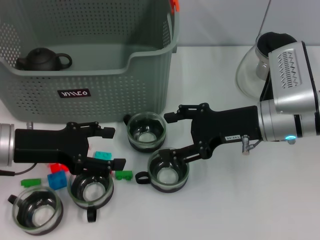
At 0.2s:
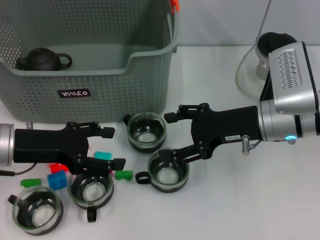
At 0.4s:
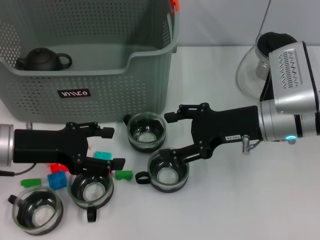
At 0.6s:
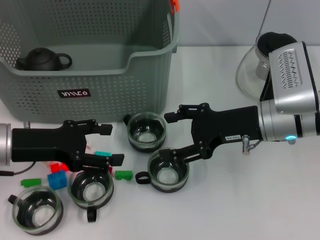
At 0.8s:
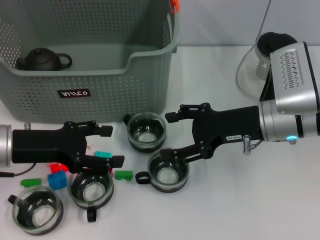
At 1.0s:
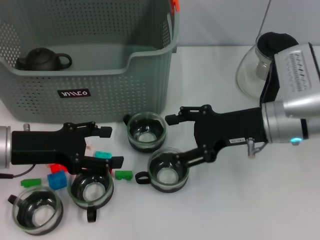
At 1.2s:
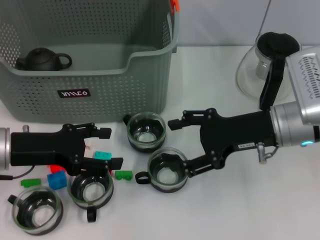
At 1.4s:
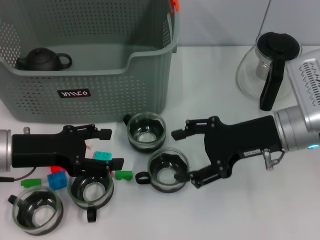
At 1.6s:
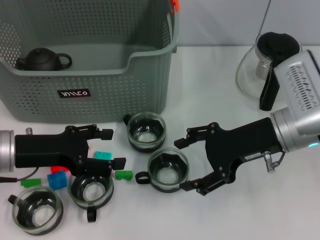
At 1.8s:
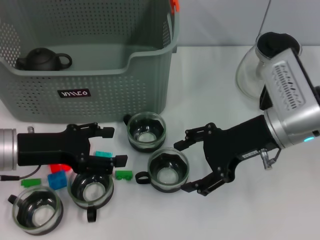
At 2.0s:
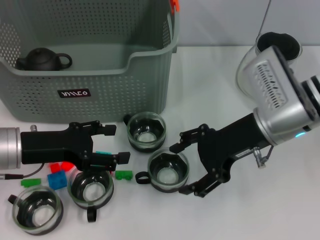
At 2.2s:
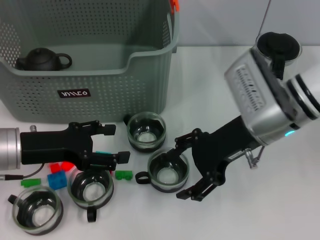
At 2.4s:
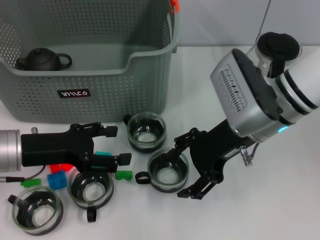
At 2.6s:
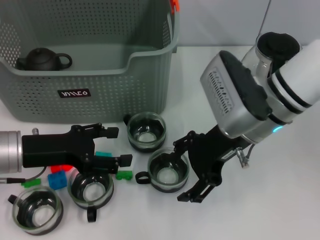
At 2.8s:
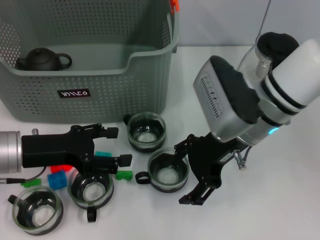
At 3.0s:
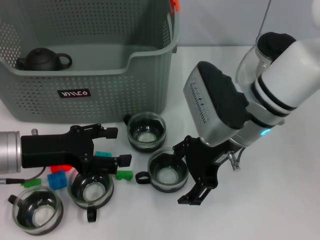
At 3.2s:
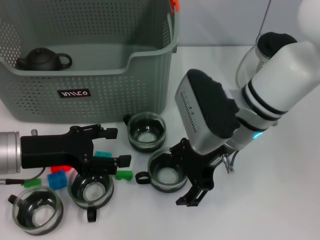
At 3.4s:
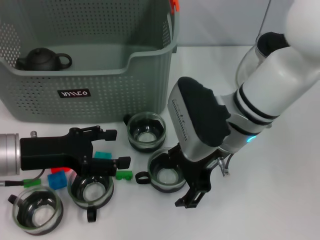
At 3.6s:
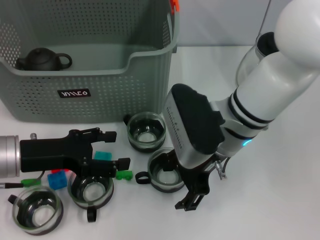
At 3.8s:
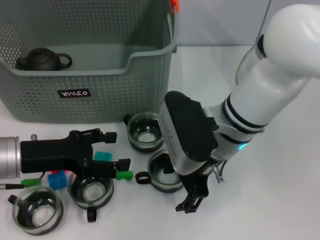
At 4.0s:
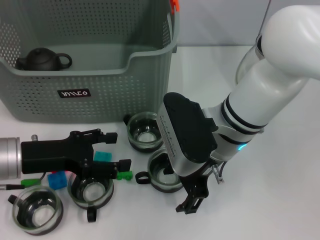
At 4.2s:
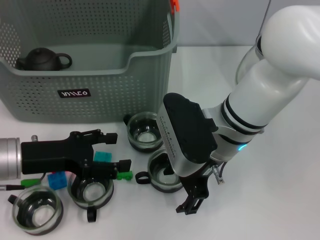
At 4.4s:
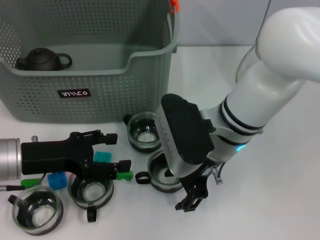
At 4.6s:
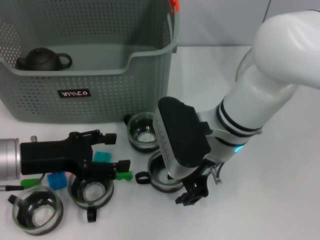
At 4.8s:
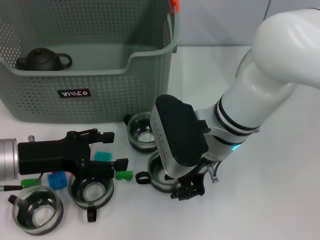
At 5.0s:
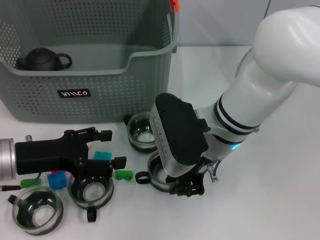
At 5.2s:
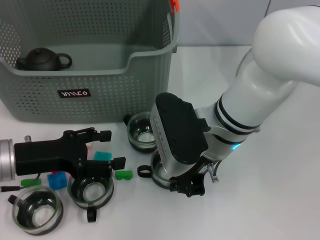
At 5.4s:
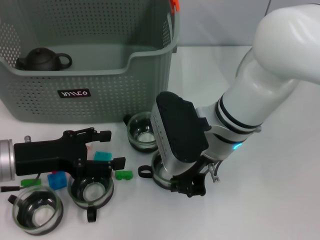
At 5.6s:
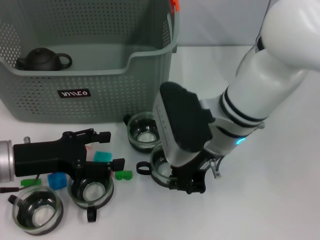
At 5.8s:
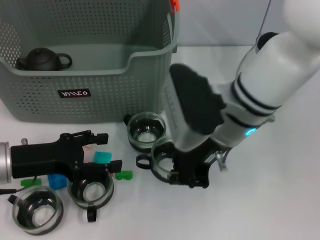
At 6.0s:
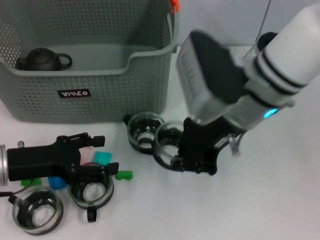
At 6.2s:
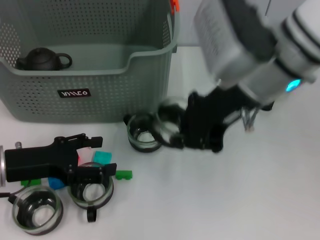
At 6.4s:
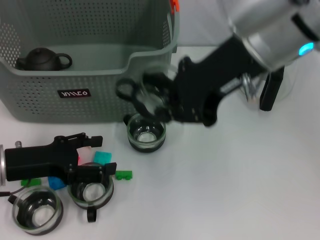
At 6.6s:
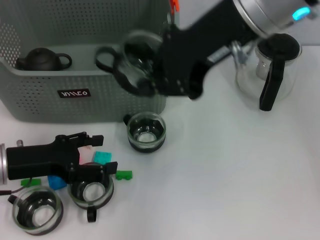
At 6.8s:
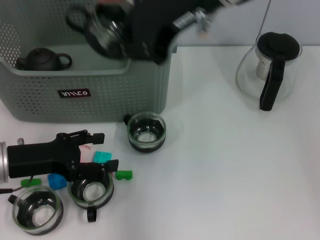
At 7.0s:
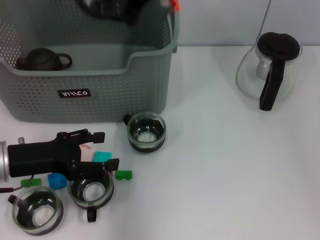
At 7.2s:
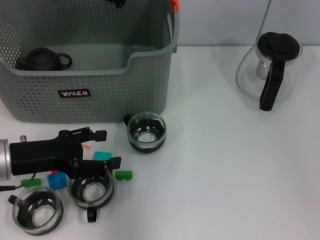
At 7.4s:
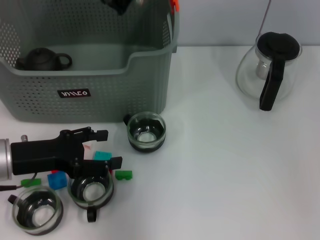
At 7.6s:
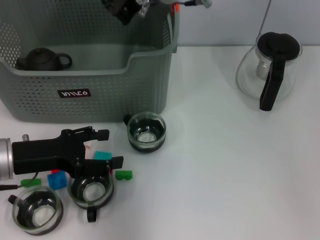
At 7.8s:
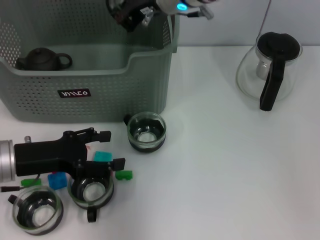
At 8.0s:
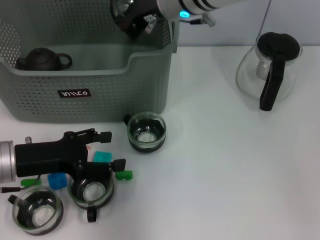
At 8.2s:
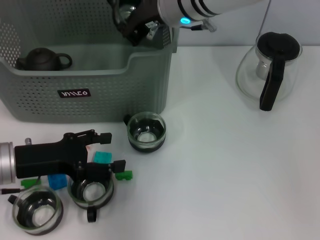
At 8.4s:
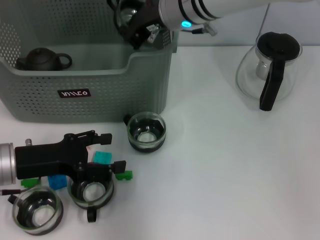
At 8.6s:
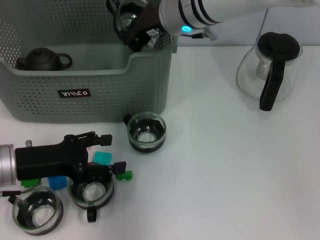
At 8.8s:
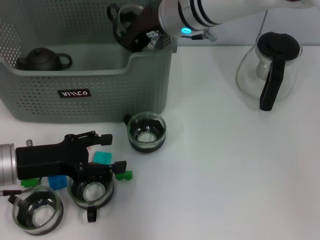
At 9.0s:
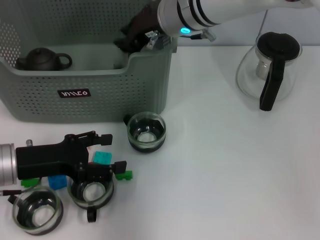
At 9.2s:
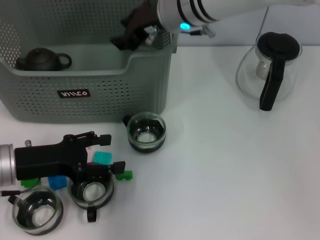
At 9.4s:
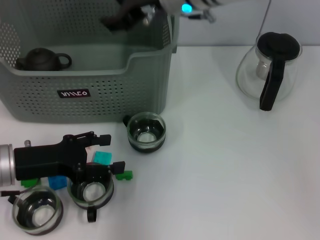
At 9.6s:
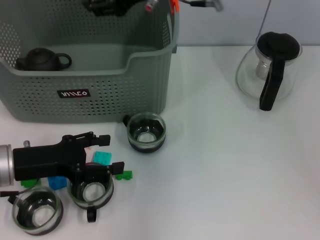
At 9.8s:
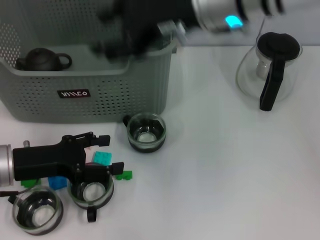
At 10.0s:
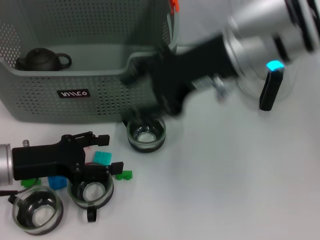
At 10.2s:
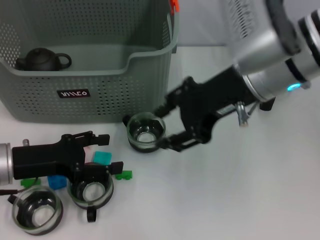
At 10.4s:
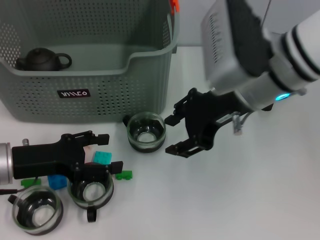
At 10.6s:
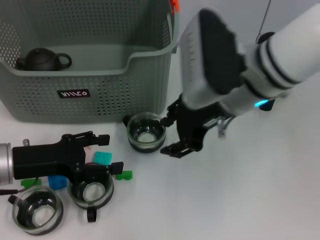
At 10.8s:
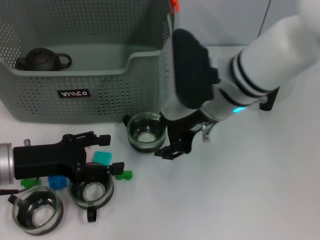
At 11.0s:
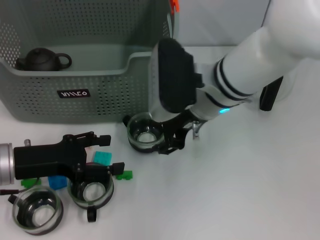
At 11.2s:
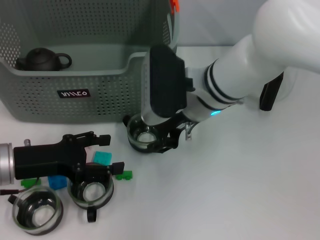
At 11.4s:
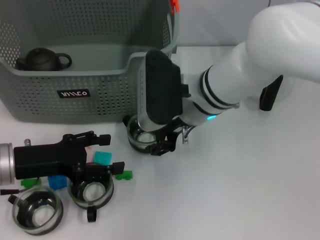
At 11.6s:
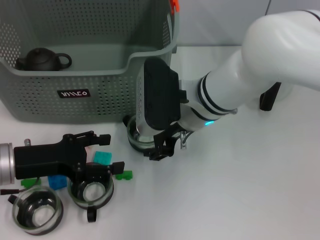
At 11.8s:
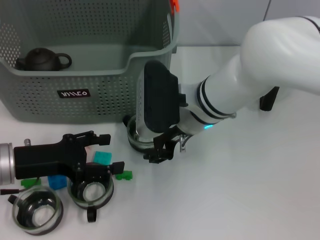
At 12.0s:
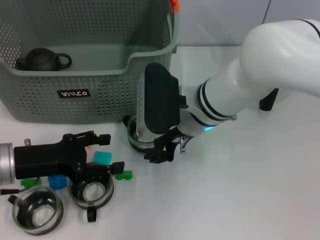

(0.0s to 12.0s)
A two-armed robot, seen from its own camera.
Task of the whole recording: pick up the teacup on the table and place it into the storage bin, pick up the block on the table and place it into the storage bin.
Step, 0.0s - 5.2s: Grasp the cup with right gripper.
Step, 5.4s - 9.2s: Place the cup in the storage box with right gripper.
0.0s - 1.6s: The grippers move only a little.
1.6s - 3.0s: The right gripper heads to the left, covering roughly 10 cm.
4.4s - 6.0s: The right gripper is displaced upward by about 10 cm, and closes its fingers.
6.0s - 7.6s: The right gripper goes roughly 15 cm forward and to the left.
7.6s - 9.0s: The grippers stay close to where they were, moving slightly.
9.0s - 10.4s: The right gripper travels backward and to the right by about 15 cm, and opens its fingers.
10.4s - 12.0s: The right gripper heads downward and to the left, covering approximately 10 cm.

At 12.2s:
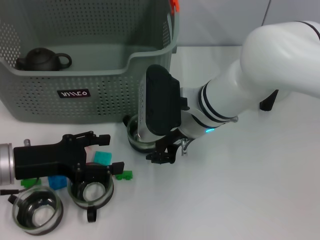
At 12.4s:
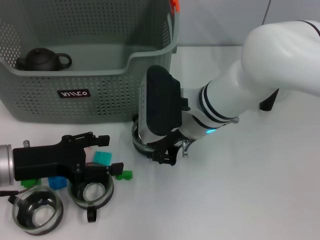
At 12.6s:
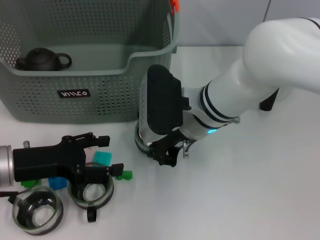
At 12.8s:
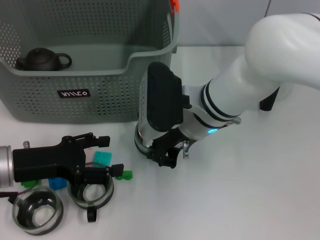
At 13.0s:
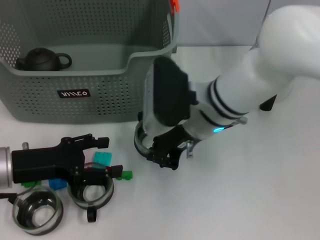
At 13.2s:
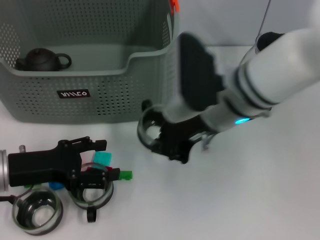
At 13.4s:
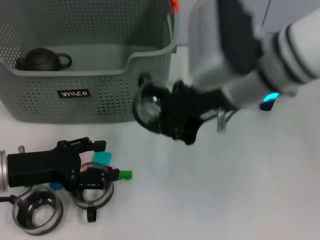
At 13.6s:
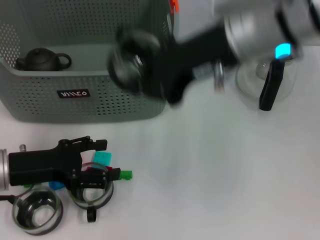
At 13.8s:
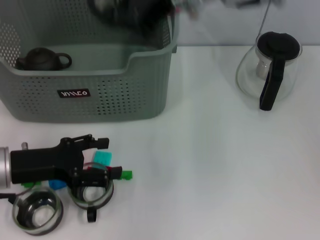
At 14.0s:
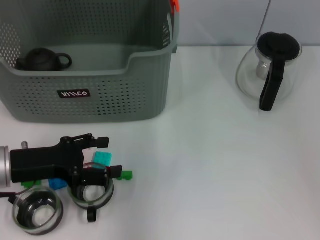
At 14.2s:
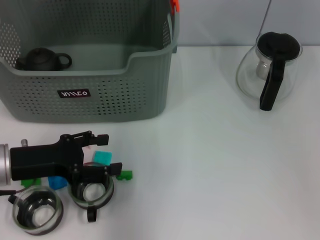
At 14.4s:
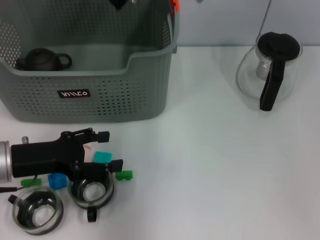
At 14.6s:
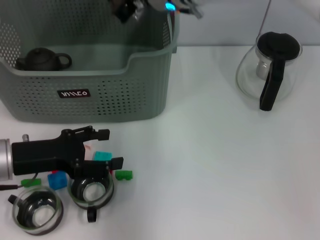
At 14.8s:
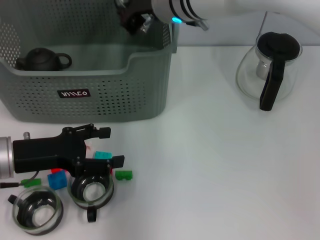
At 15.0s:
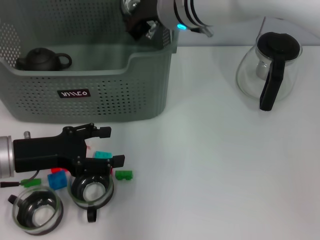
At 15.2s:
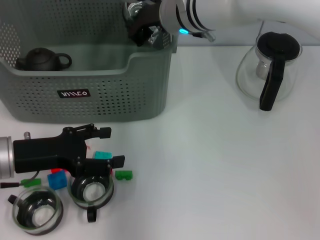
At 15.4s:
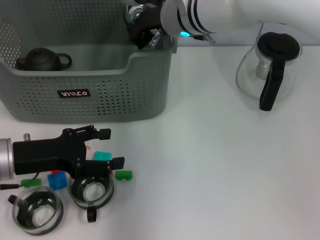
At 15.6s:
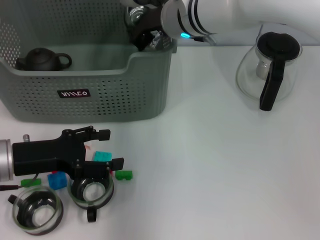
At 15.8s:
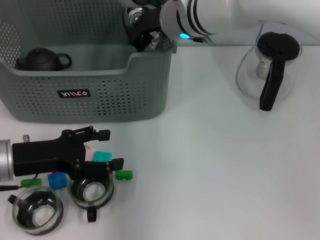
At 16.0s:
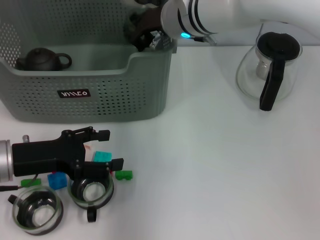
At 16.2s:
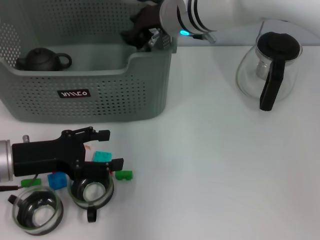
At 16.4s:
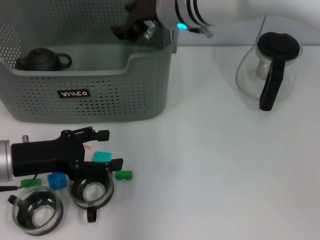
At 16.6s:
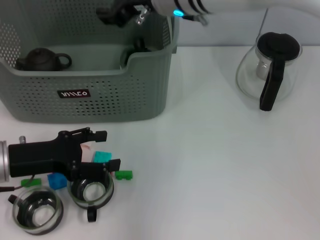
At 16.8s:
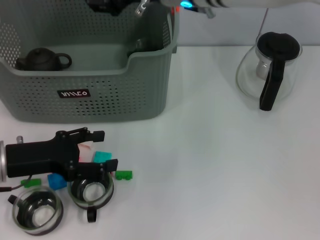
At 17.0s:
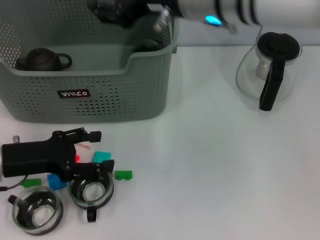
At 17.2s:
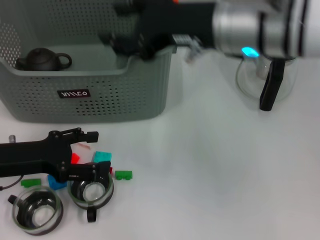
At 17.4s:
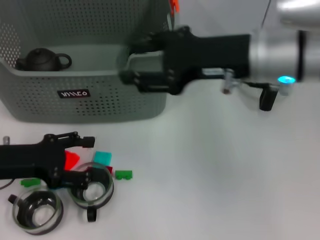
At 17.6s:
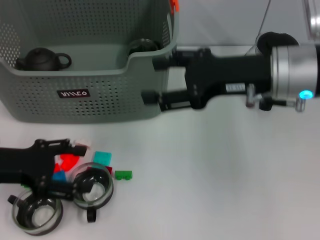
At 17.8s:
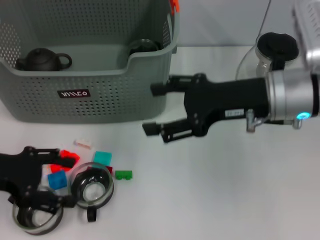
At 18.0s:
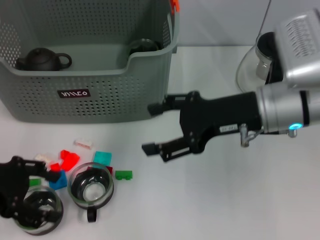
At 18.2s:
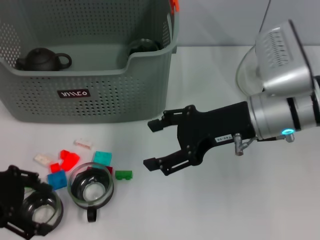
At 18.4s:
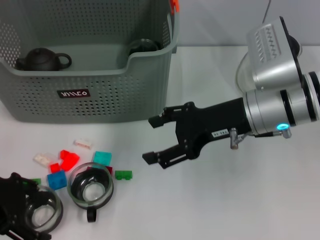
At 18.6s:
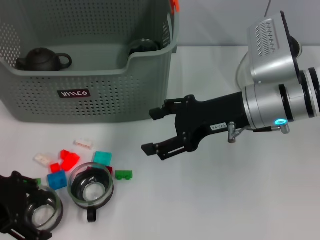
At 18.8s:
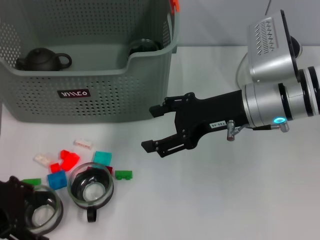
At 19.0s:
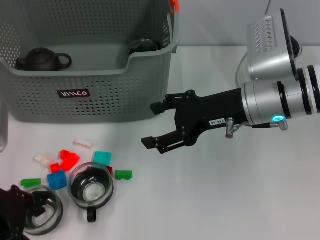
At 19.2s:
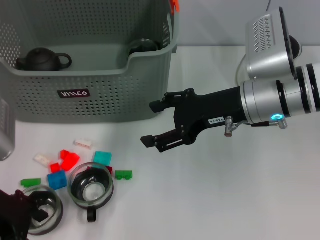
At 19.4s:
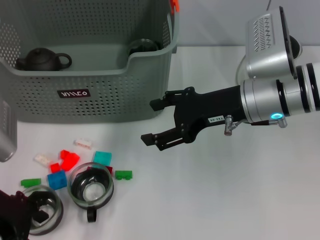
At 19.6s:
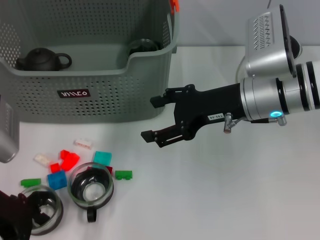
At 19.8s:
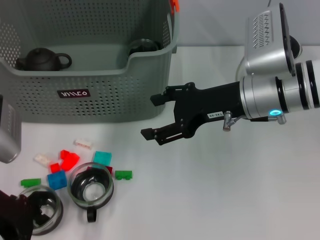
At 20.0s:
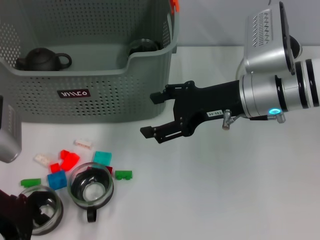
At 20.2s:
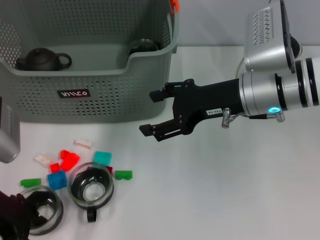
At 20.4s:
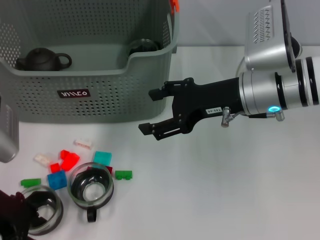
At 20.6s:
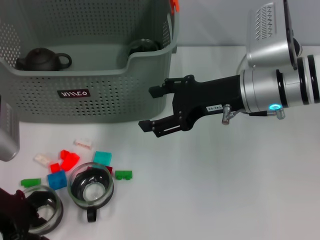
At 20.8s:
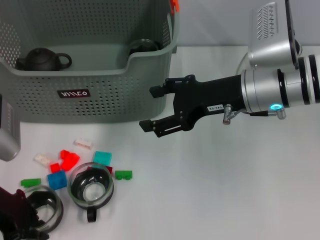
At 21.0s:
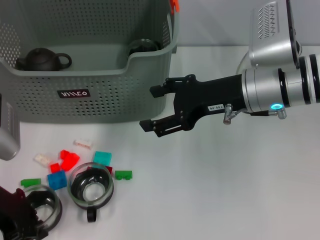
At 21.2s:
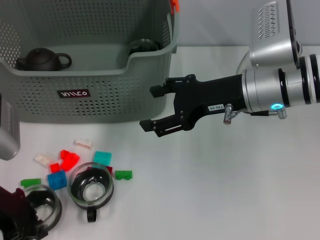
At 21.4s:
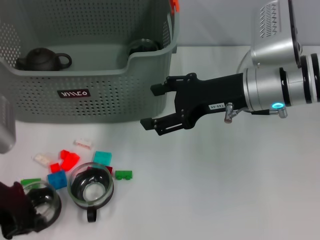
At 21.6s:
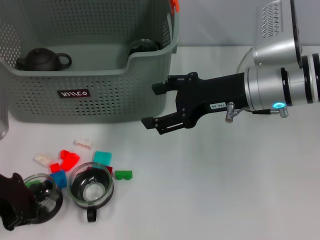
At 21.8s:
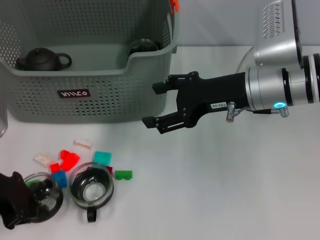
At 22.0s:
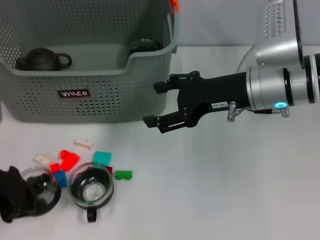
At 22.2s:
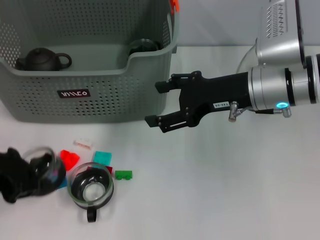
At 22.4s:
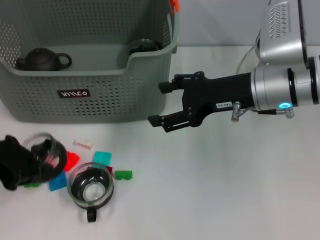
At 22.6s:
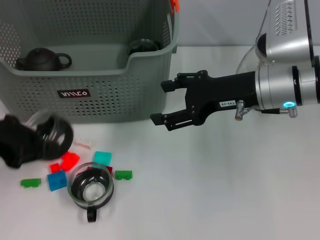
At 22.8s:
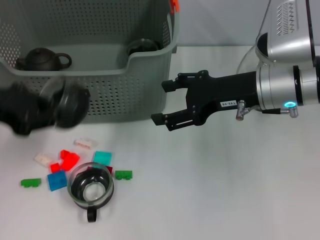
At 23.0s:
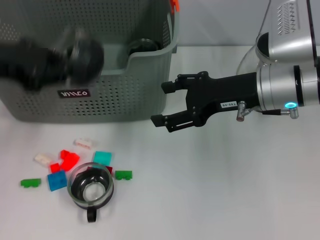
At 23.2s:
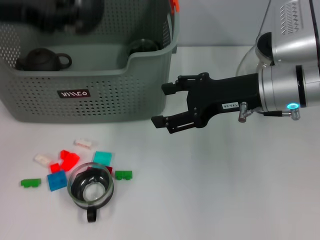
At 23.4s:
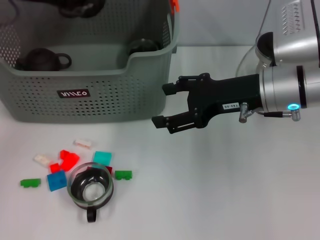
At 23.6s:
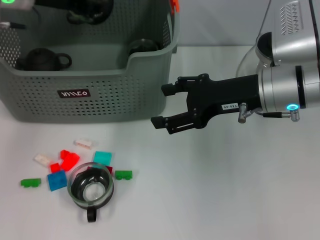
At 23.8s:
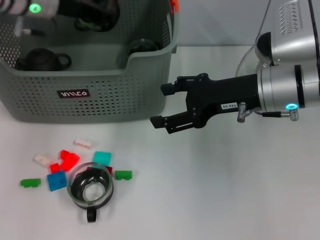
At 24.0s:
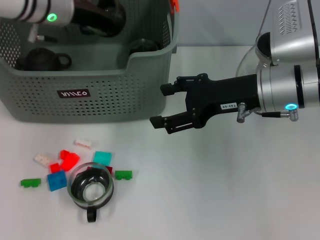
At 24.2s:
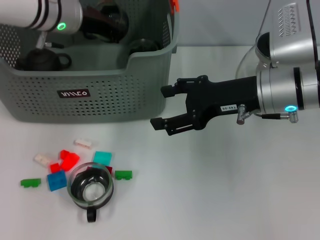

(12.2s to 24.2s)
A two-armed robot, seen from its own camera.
Task of the whole recording: pick up the teacup on the table and place it into the storage bin, pick up the block on the table and place it into the storage bin.
Step, 13.0s - 16.2s: Place the cup in the storage box with right gripper.
Step, 16.4s - 21.2s: Grasp the cup with left gripper.
12.2s - 13.8s: The right gripper moves upward, about 20 cm, and closes its fingers.
13.8s - 15.2s: The right gripper shifts roughly 15 cm downward and forward.
15.2s - 16.6s: The right gripper opens its fingers.
16.6s - 18.2s: The left gripper heads upward, covering about 5 cm, while the right gripper moves to the right, backward and downward, roughly 20 cm, and opens up.
18.2s - 19.8s: The grippers move only a little.
19.8s - 21.2s: The left gripper closes its fingers.
21.2s - 22.6s: The left gripper moves upward, approximately 5 cm.
22.6s - 24.2s: The left gripper goes about 20 cm forward and to the right.
